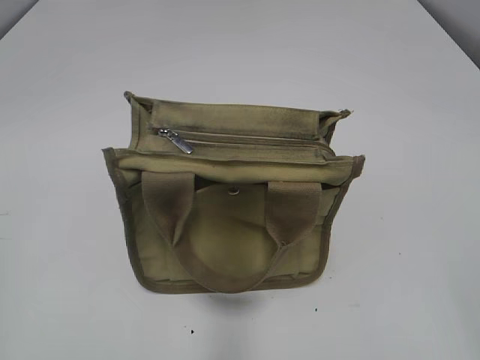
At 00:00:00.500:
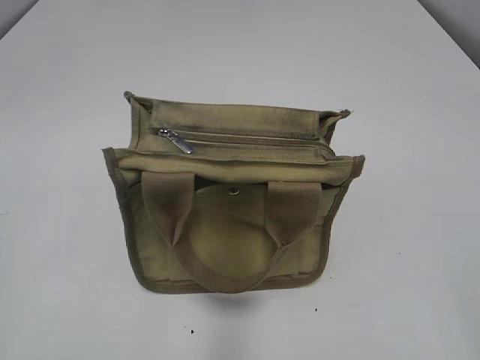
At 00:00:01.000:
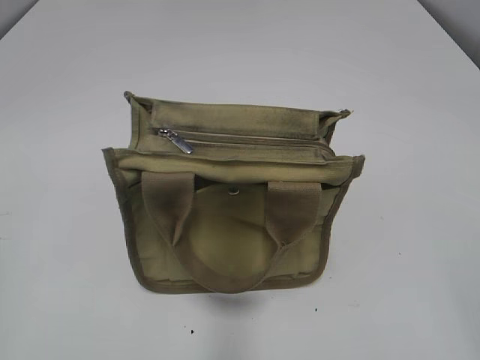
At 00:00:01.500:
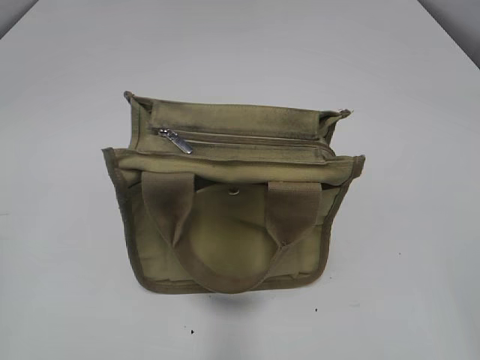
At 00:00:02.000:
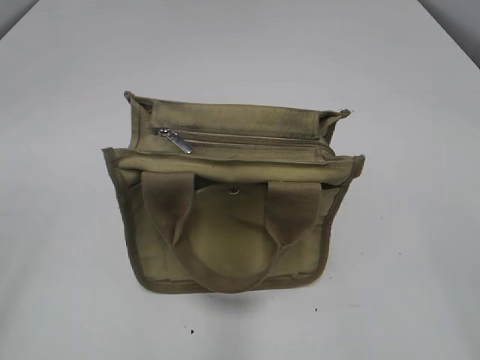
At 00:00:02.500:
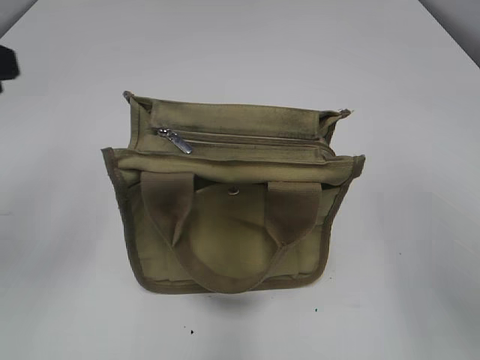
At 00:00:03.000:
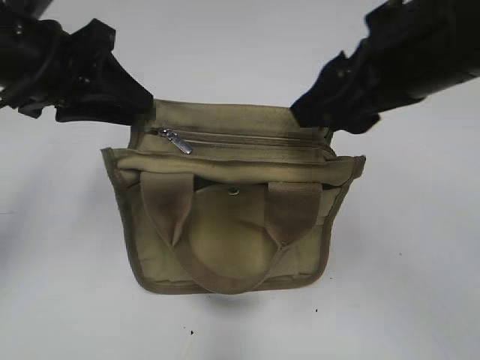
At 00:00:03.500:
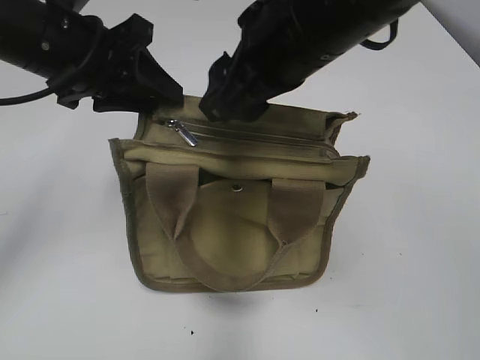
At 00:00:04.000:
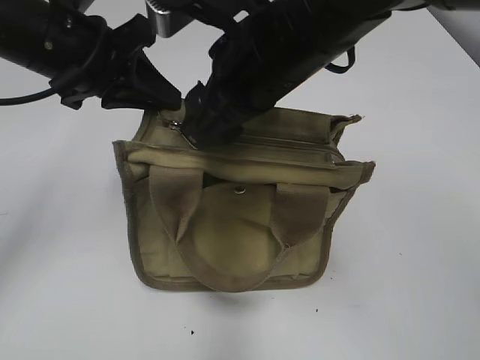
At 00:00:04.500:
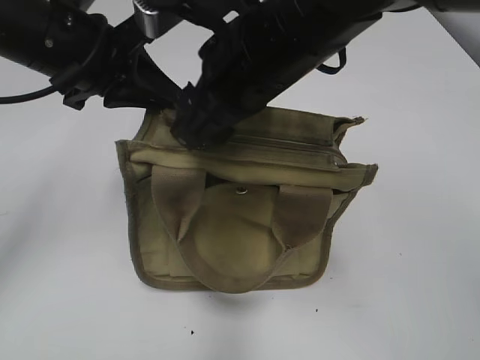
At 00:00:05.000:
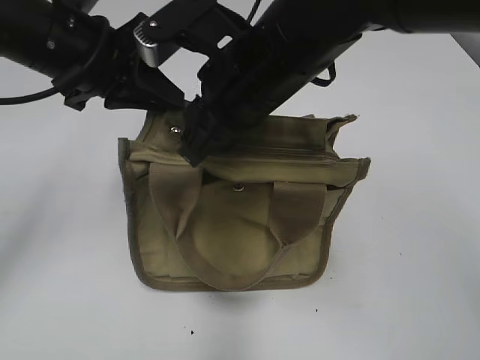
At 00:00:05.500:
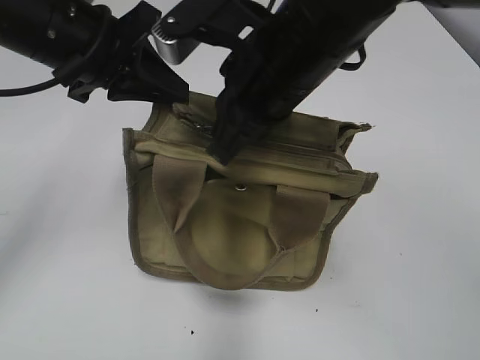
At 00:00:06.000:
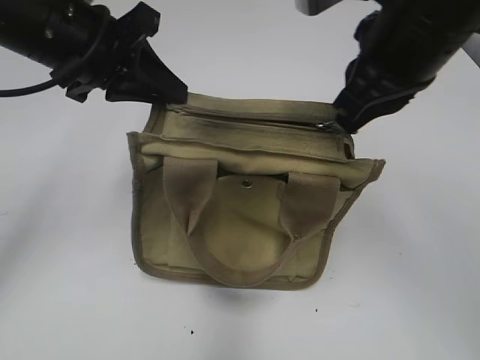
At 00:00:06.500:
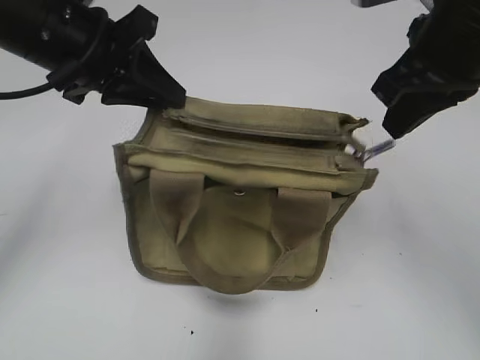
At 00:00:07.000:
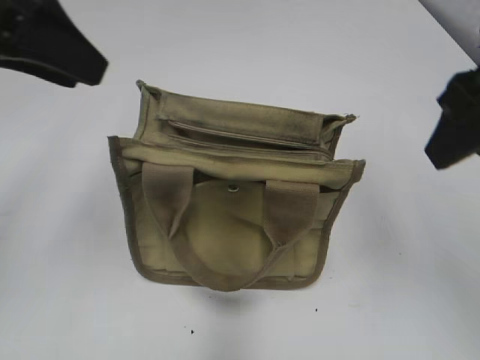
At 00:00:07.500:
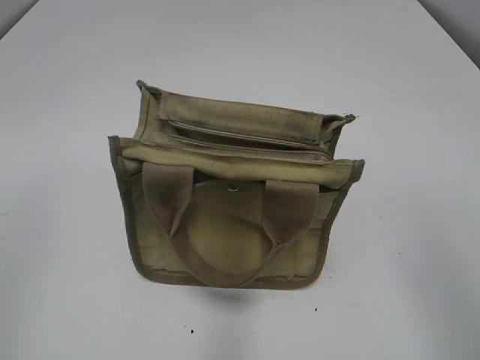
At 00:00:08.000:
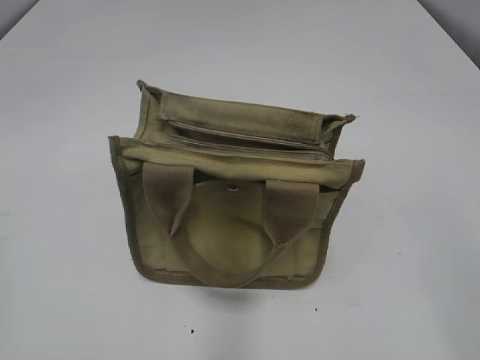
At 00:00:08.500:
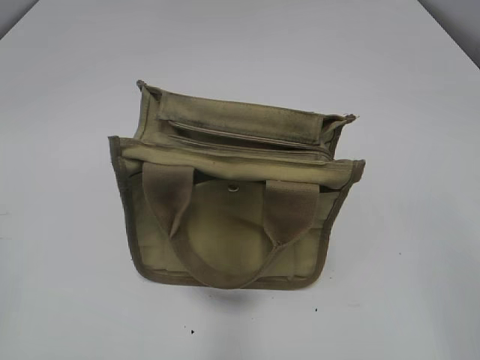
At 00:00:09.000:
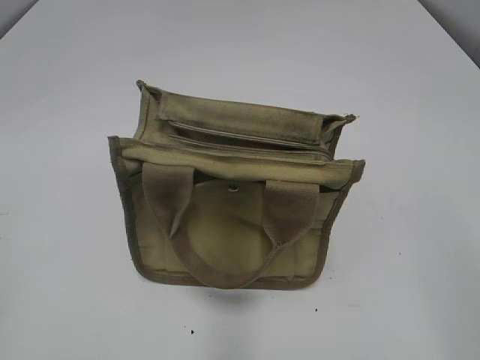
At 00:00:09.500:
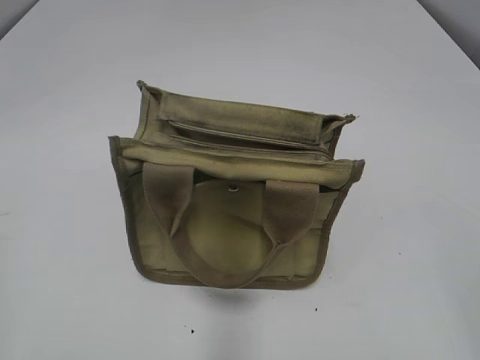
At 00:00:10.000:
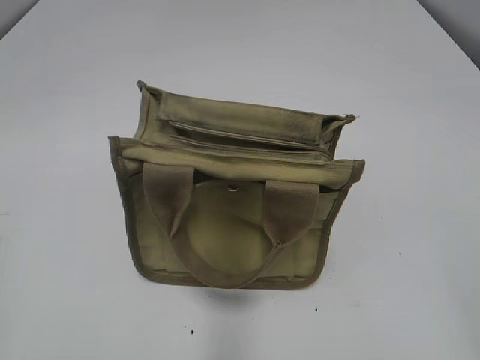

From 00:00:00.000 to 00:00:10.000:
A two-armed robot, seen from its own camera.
Step, from 00:00:00.000 to 00:00:06.000: Pull open the zipper with your right hand.
From 00:00:02.000 to 00:00:04.000: The right gripper is displaced forward and to the left by roughly 35 cm. The left gripper is displaced forward and to the right by approximately 30 cm, and closes.
From 00:00:04.000 to 00:00:06.000: The right gripper moves to the right, some 10 cm, and closes.
From 00:00:06.000 to 00:00:08.000: The left gripper moves backward and to the left, about 35 cm, and opens up. Meanwhile the right gripper is displaced backward and to the right by roughly 30 cm, and opens its fingers.
